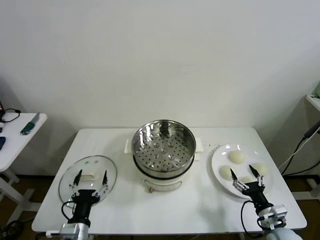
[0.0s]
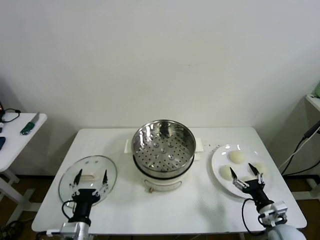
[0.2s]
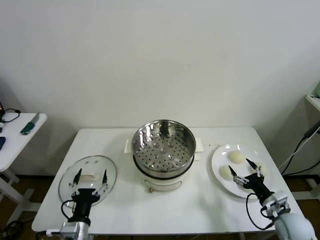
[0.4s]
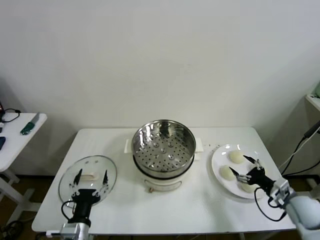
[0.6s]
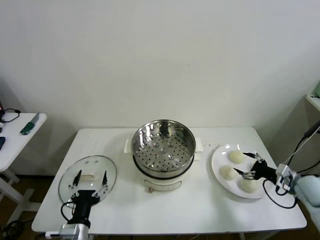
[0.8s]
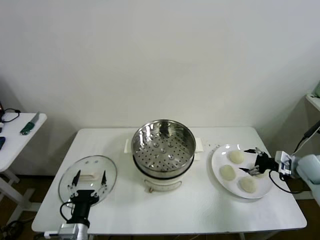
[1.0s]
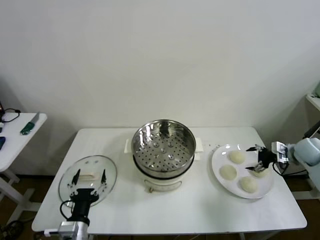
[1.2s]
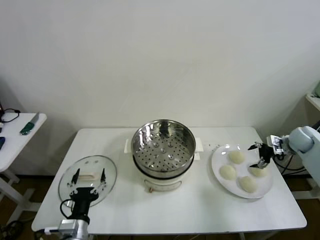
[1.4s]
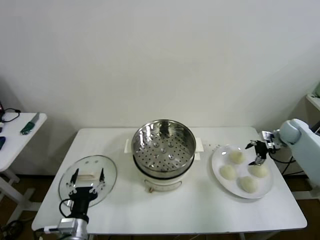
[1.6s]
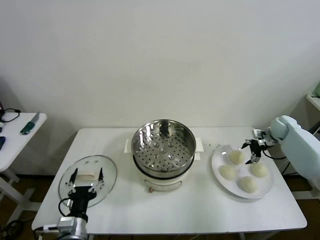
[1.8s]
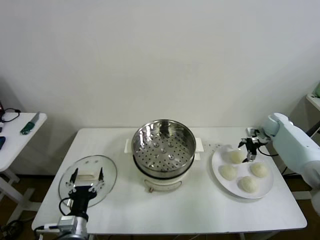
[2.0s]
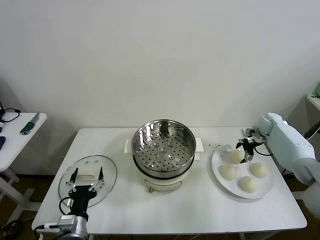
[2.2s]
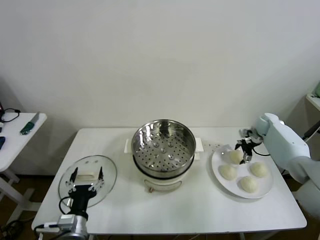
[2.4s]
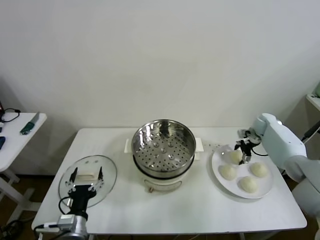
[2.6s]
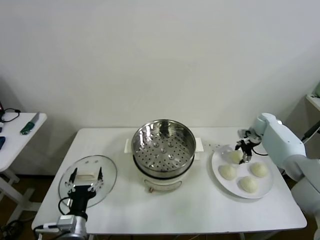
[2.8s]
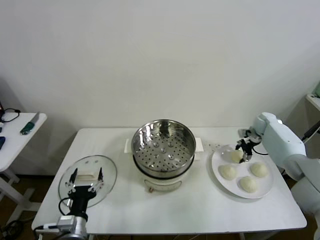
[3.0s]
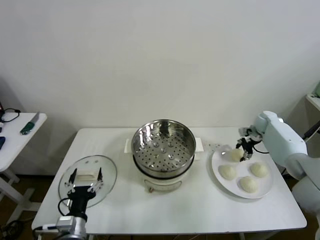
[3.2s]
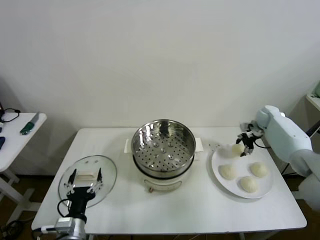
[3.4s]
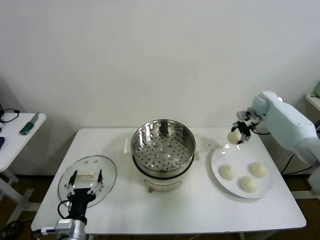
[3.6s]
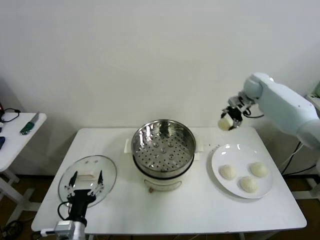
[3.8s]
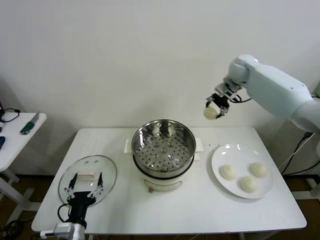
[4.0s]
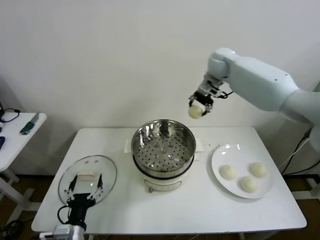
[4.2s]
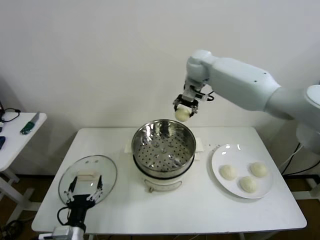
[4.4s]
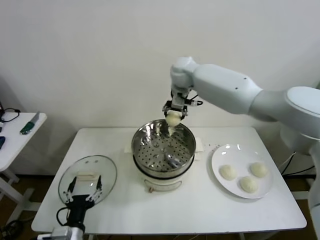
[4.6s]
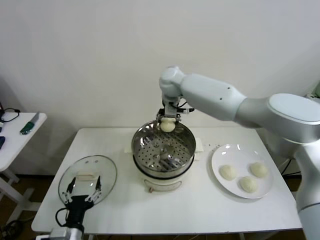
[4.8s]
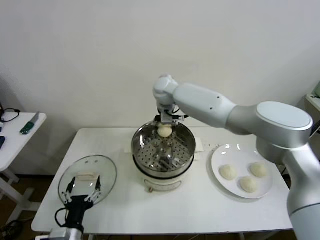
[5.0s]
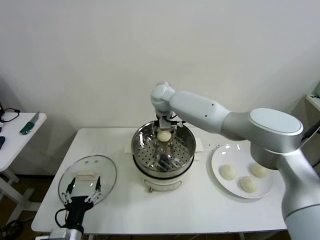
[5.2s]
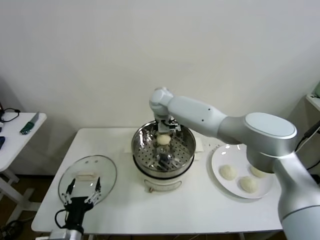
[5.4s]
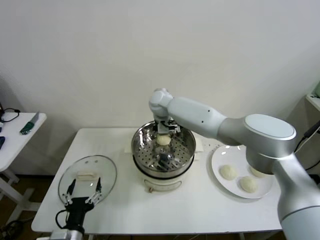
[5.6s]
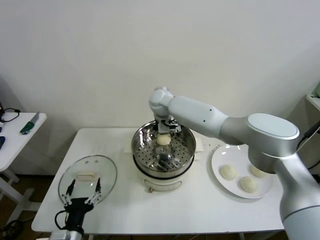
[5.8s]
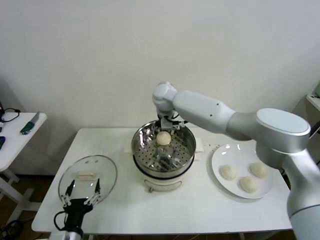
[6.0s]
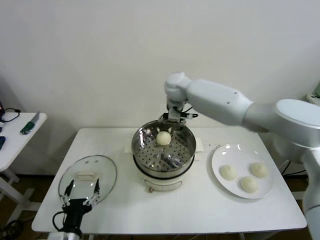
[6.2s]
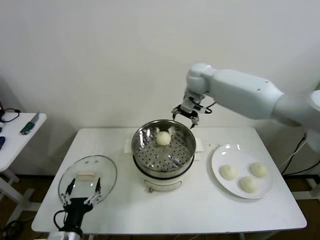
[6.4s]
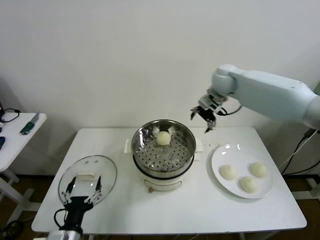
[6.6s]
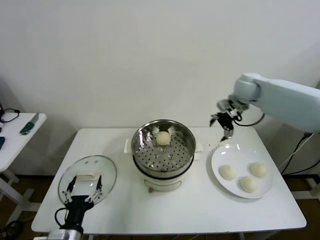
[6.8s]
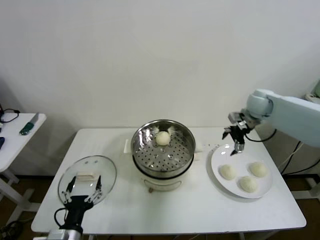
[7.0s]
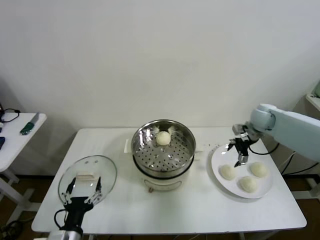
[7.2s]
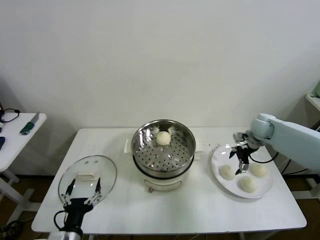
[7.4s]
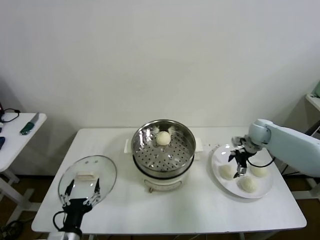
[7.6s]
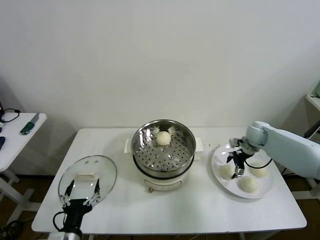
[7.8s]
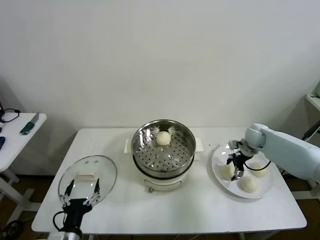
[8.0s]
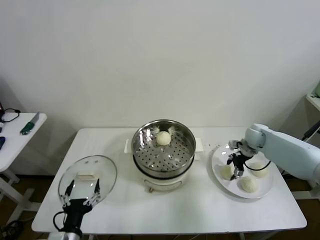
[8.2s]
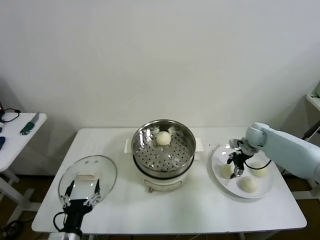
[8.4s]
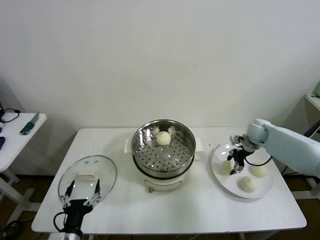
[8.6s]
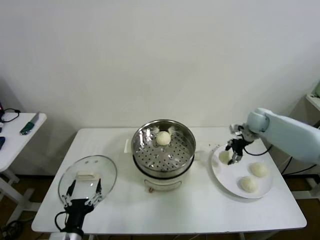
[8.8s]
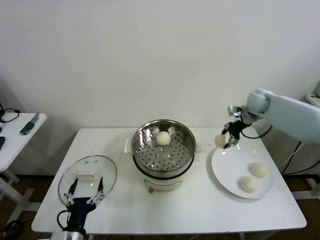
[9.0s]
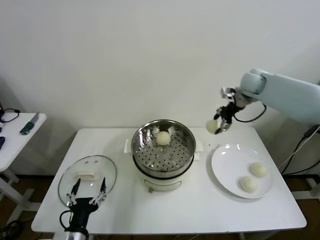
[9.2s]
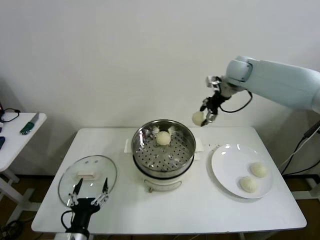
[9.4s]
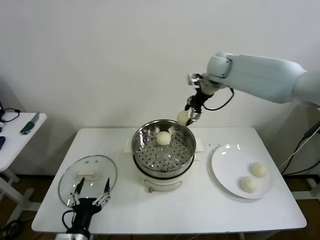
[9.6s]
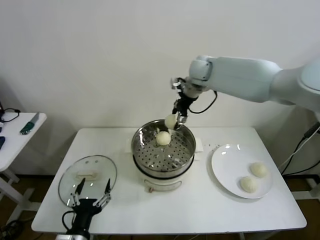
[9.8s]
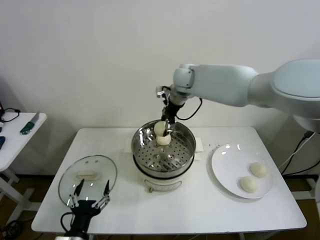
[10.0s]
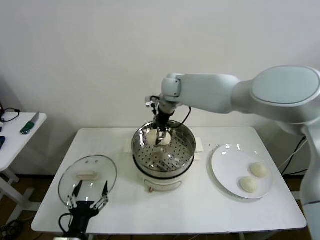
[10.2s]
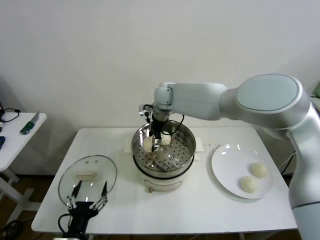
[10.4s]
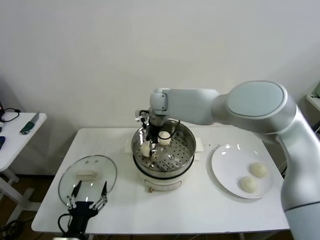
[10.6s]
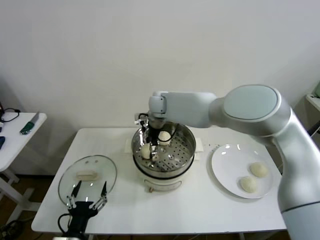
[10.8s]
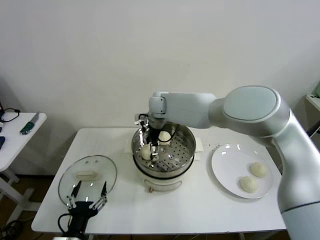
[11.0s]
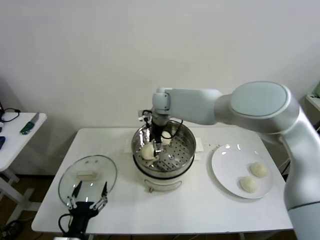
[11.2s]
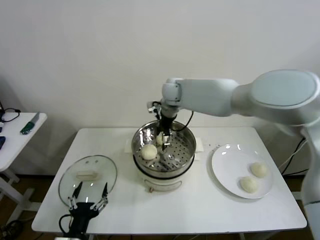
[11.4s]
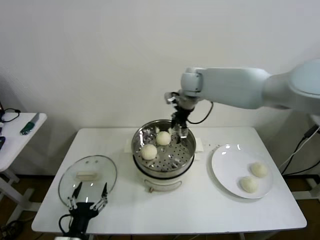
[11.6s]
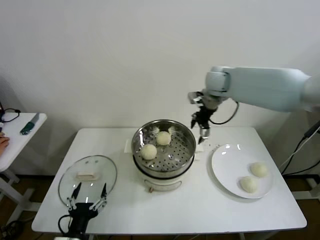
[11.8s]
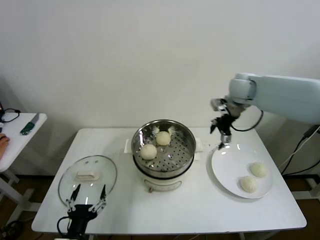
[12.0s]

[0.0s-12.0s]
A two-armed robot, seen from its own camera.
Step, 0.0s to 2.6s: Grasp the baozi in the plate with right gripper.
Step, 2.8s to 5.6s: Place the baozi on the steamer with right gripper.
Step, 5.8s to 8.0s: Grasp the baozi in the plate with right gripper.
Step, 8.2s to 11.0s: Place the baozi on the steamer with right gripper.
1.6s to 3.0s: The right gripper is displaced forward and to the left by roughly 10 cm, and closes up.
3.0s to 4.4s: The right gripper moves to the left and upward, approximately 40 cm.
4.4s to 6.0s: The right gripper heads downward and to the left, covering about 10 cm, and opens up.
6.0s to 7.6s: The right gripper heads to the right and downward, covering some 40 cm.
7.6s to 9.0s: The right gripper goes about 15 cm upward and forward, and closes its fingers.
9.0s to 10.4s: The right gripper heads to the left, covering approximately 35 cm.
10.4s to 12.0s: The right gripper is displaced to the right by approximately 30 cm, and opens.

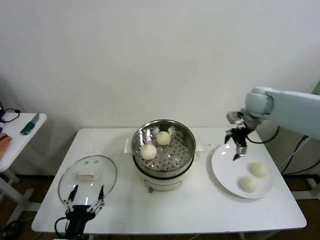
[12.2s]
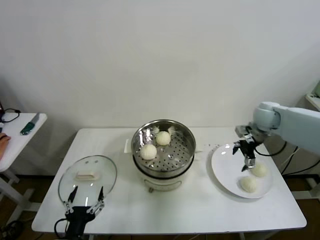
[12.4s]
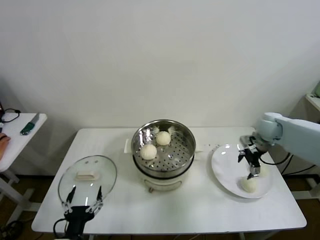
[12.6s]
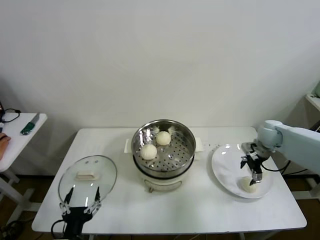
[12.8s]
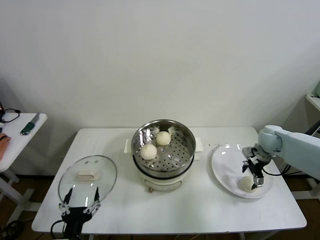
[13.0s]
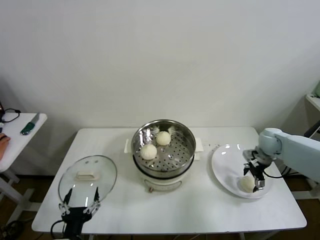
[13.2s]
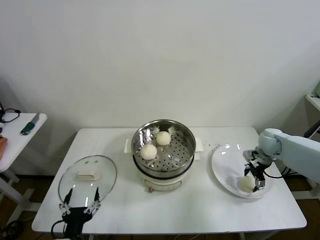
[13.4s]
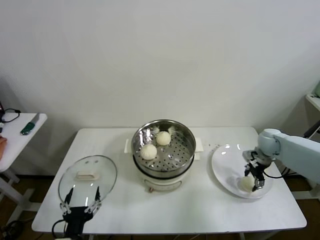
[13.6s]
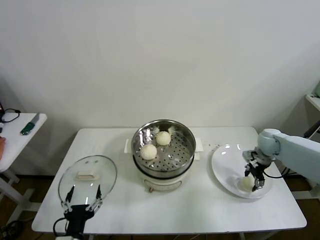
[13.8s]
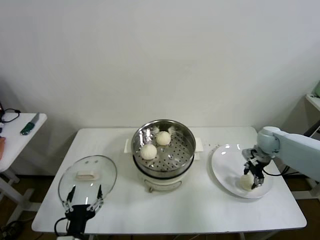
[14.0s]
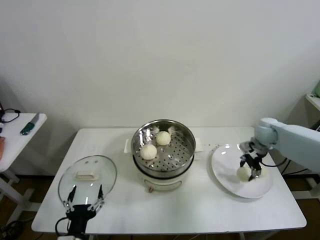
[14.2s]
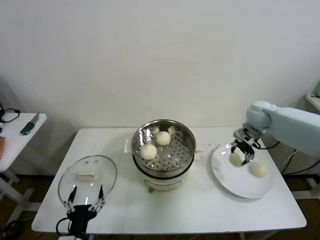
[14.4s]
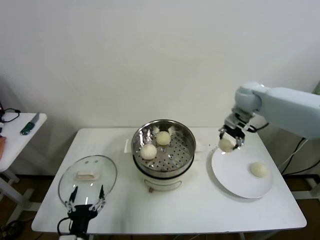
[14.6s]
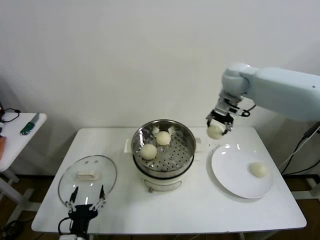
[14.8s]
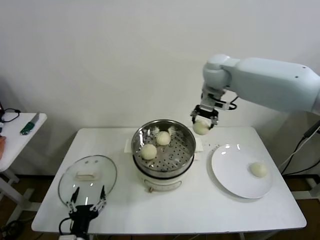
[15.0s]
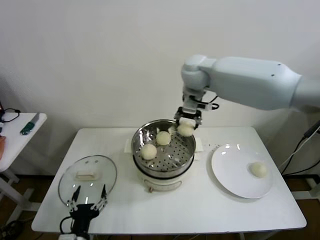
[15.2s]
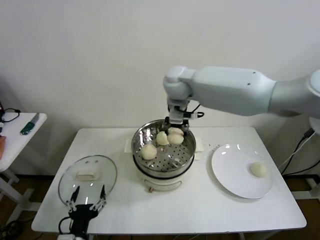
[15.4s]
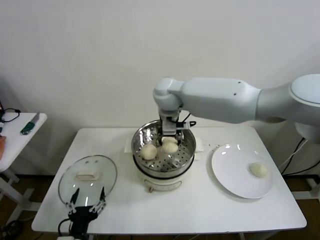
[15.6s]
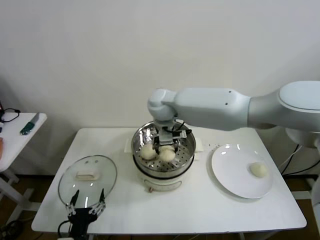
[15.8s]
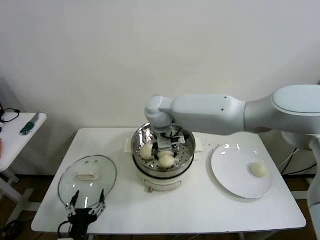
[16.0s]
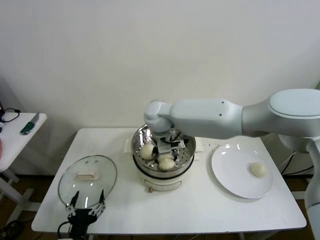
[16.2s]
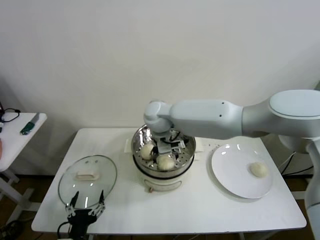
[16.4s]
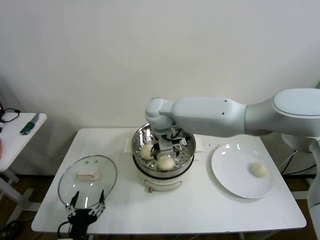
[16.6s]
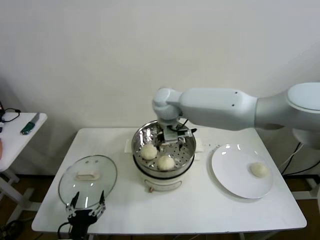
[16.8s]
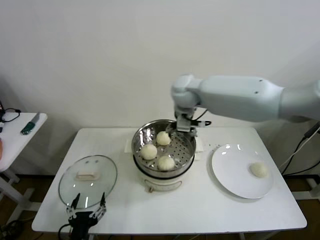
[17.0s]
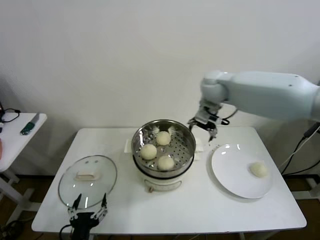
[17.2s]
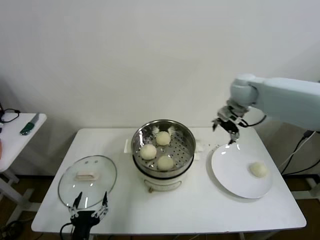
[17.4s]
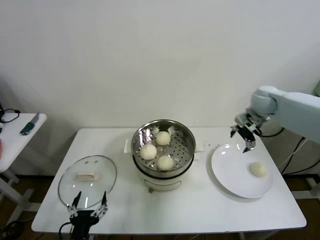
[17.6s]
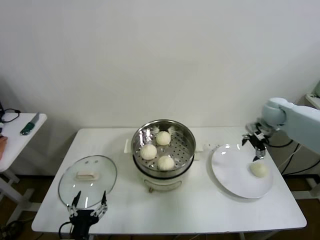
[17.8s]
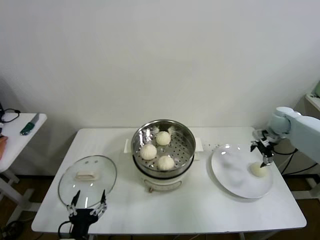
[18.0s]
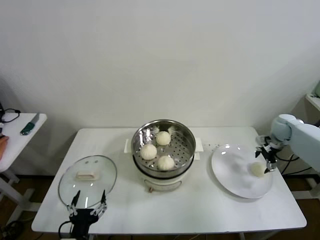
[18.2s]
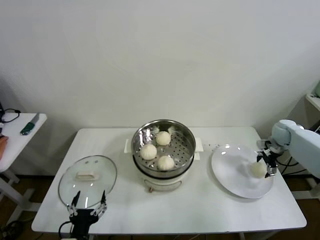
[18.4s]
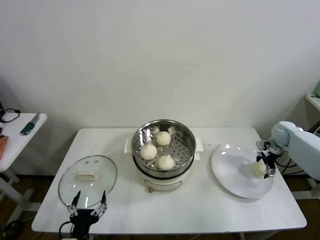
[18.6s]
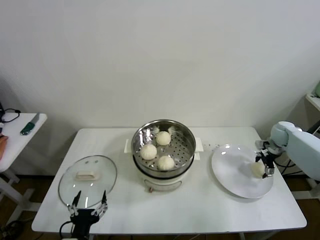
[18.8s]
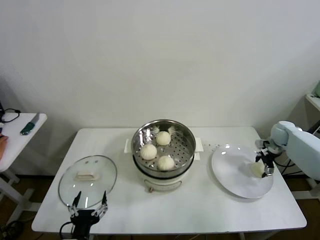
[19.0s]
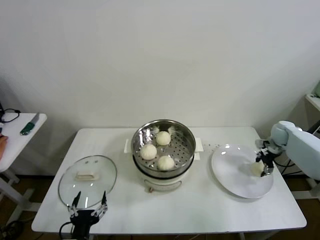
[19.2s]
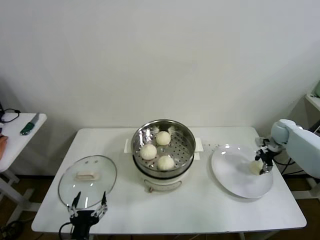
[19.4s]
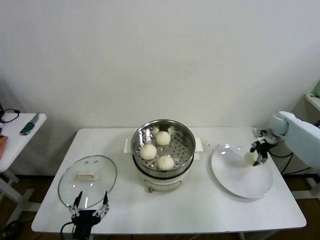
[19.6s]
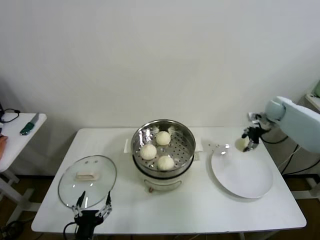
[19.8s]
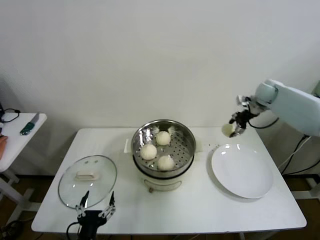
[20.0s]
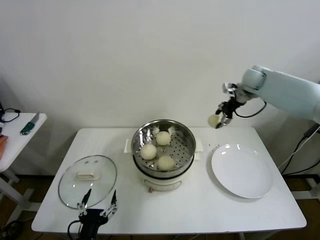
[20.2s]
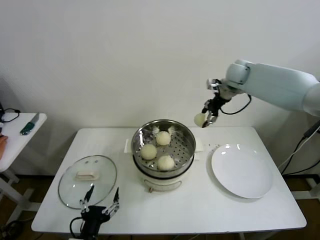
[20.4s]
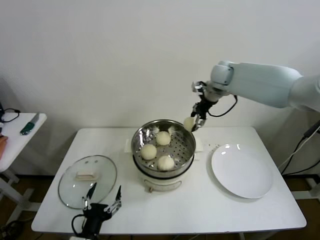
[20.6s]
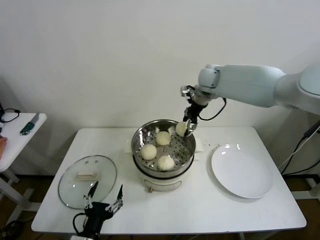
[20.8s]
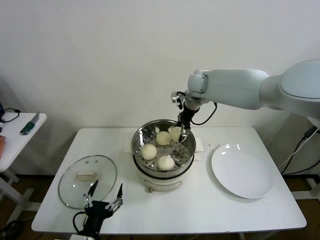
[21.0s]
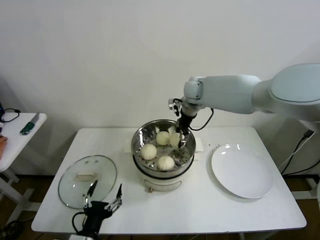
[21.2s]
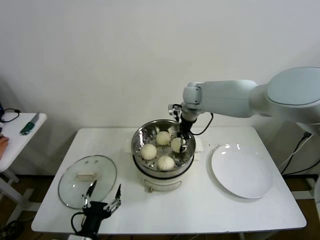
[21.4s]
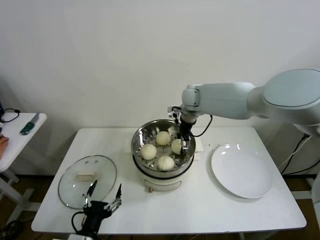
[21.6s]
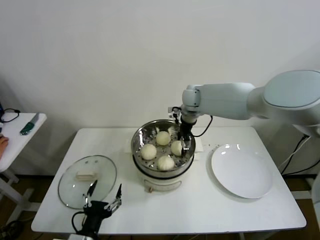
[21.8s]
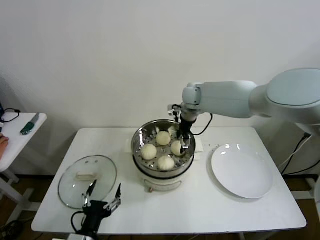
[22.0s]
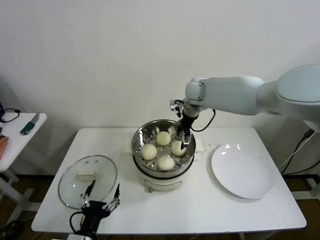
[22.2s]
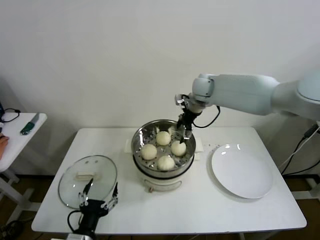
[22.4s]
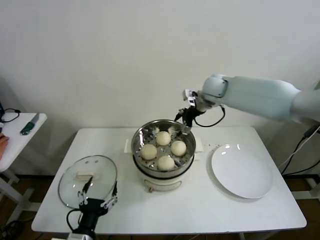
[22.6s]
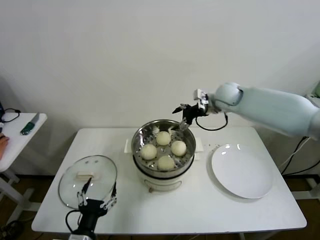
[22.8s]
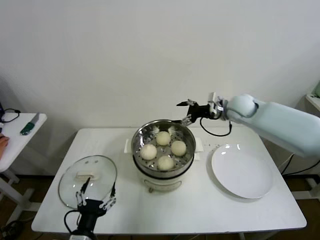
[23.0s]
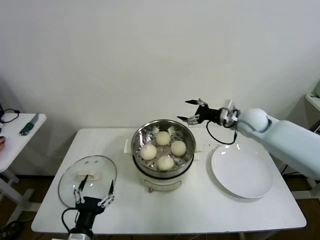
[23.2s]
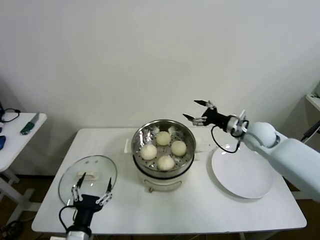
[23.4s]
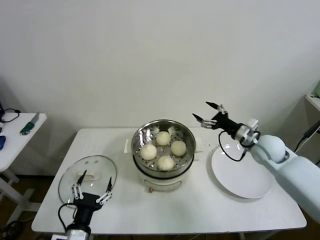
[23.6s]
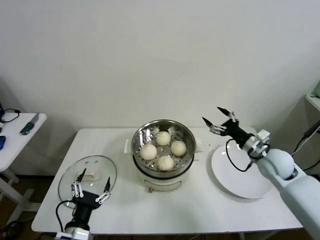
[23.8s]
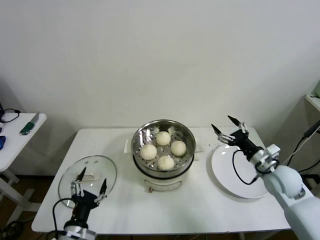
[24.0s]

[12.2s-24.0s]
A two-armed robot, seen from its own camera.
Step, 12.2s to 13.6s: Grasp the baozi in the plate with right gripper.
Step, 13.8s to 16.4s: Place the baozi on the steamer with right gripper.
Step, 16.6s to 19.2s: Grasp the baozi in the plate with right gripper.
Step, 19.4s to 21.8s: Place the baozi on the steamer with right gripper.
12.2s to 13.6s: The right gripper heads downward and to the right, covering roughly 15 cm, and closes its fingers.
13.6s to 15.2s: The right gripper heads to the left and upward, covering approximately 40 cm.
15.2s to 16.6s: The right gripper heads downward, to the left and backward, covering roughly 15 cm, and opens its fingers.
16.6s to 18.2s: The right gripper moves to the right, about 50 cm.
18.2s to 19.6s: The right gripper closes its fingers.
19.6s to 21.0s: The right gripper moves to the left and upward, approximately 40 cm.
21.0s to 22.6s: The right gripper is displaced to the right by about 5 cm, and opens its fingers.
22.6s to 24.0s: The right gripper is displaced backward, downward and to the right by roughly 35 cm.
